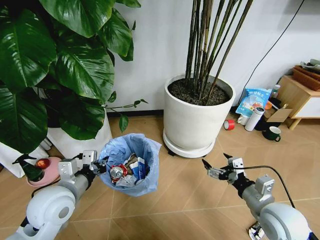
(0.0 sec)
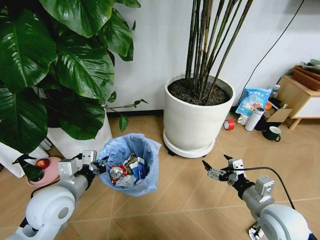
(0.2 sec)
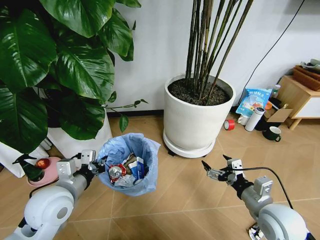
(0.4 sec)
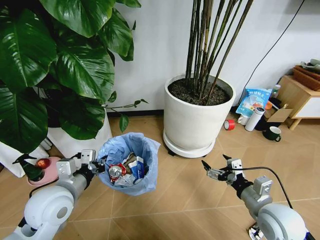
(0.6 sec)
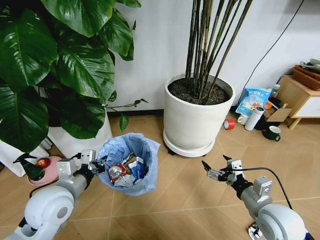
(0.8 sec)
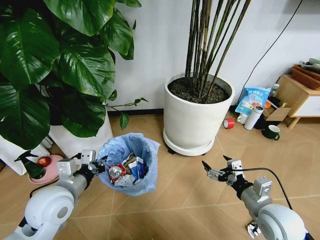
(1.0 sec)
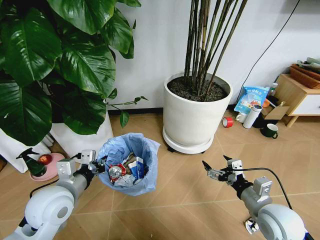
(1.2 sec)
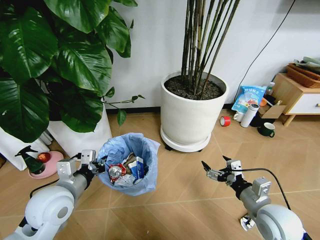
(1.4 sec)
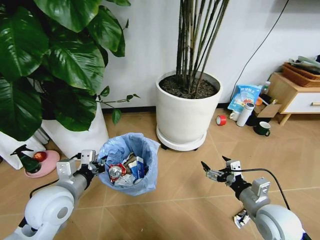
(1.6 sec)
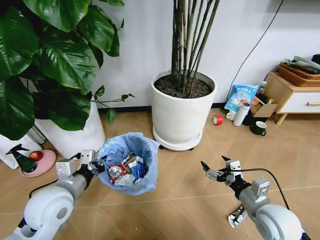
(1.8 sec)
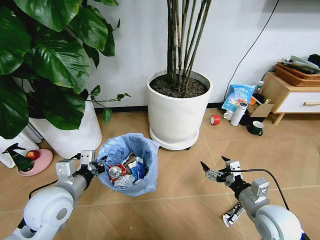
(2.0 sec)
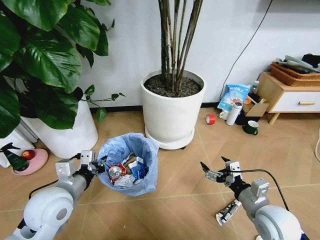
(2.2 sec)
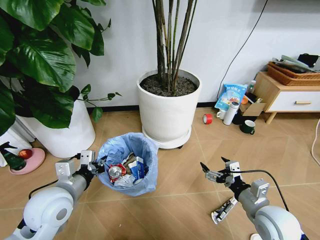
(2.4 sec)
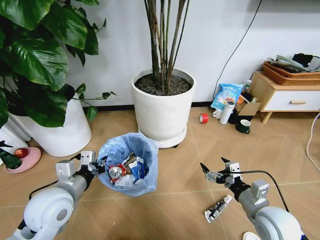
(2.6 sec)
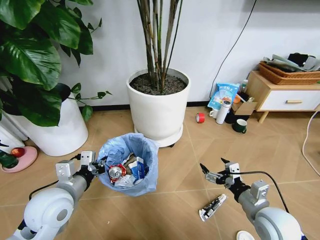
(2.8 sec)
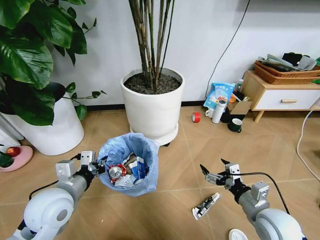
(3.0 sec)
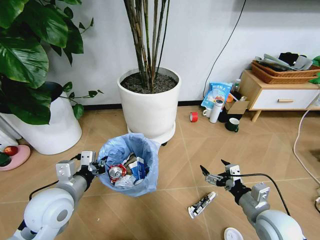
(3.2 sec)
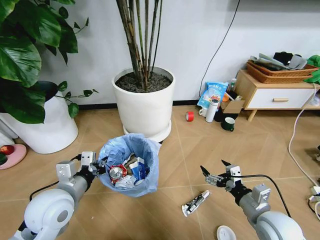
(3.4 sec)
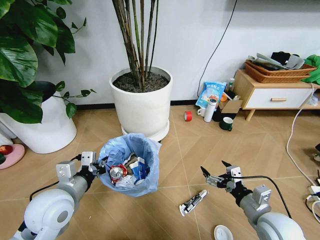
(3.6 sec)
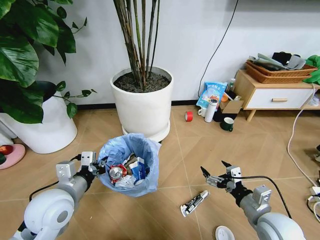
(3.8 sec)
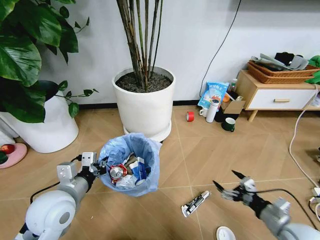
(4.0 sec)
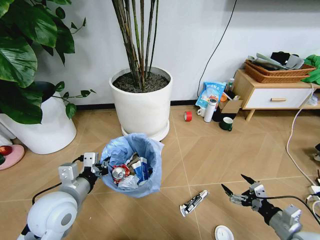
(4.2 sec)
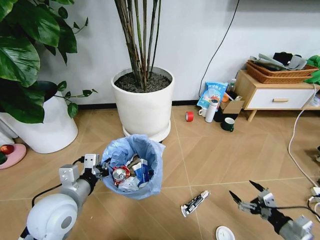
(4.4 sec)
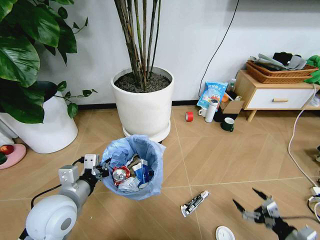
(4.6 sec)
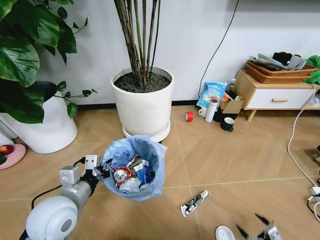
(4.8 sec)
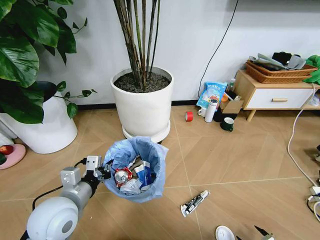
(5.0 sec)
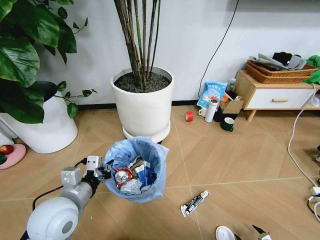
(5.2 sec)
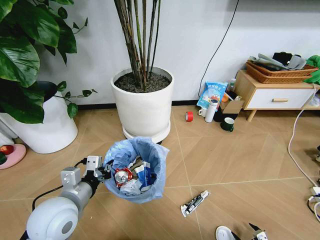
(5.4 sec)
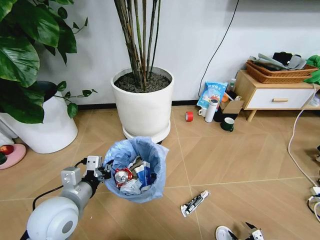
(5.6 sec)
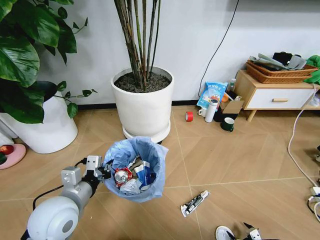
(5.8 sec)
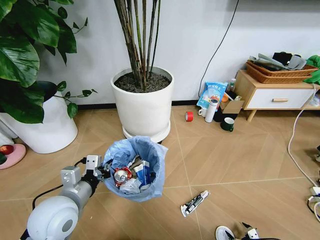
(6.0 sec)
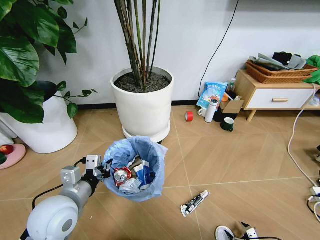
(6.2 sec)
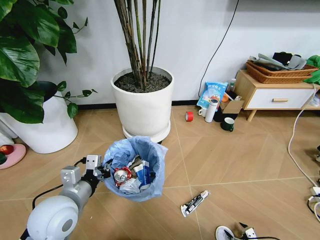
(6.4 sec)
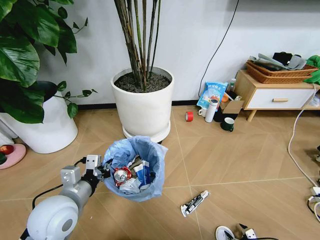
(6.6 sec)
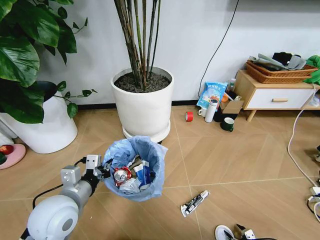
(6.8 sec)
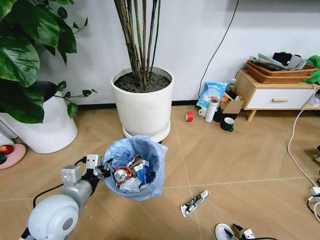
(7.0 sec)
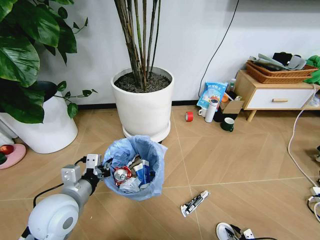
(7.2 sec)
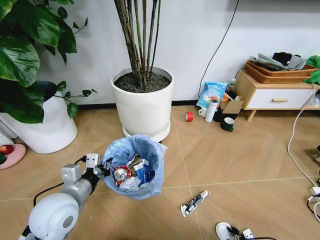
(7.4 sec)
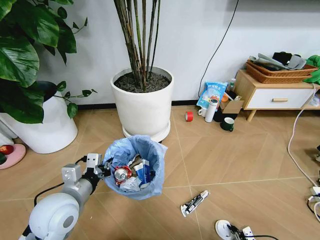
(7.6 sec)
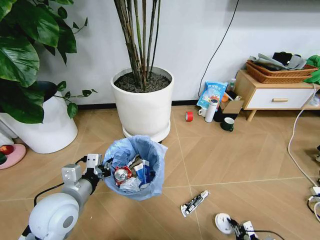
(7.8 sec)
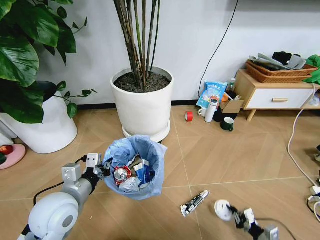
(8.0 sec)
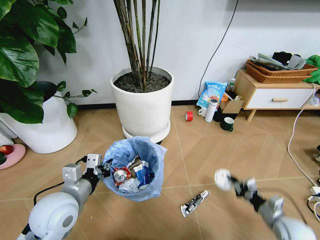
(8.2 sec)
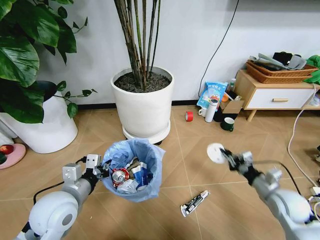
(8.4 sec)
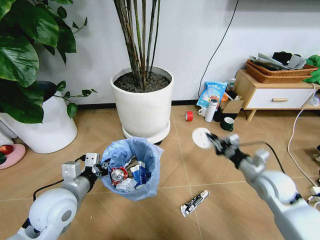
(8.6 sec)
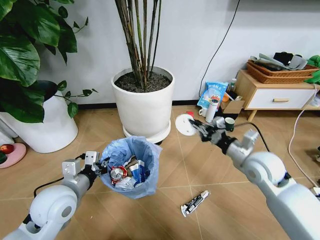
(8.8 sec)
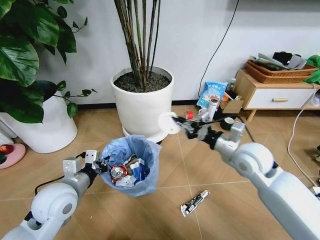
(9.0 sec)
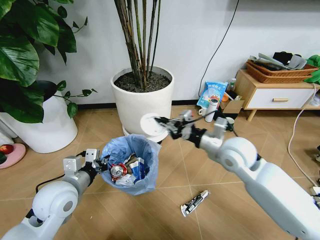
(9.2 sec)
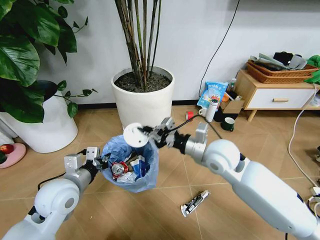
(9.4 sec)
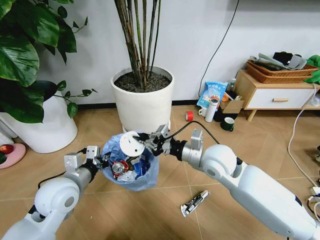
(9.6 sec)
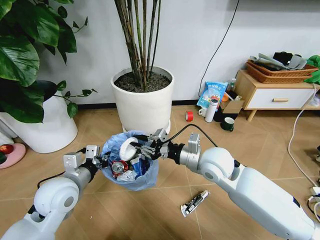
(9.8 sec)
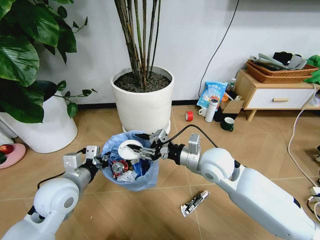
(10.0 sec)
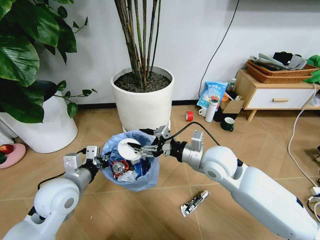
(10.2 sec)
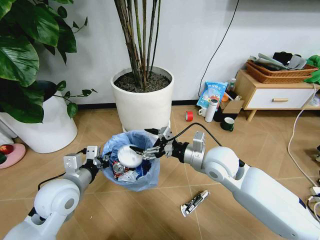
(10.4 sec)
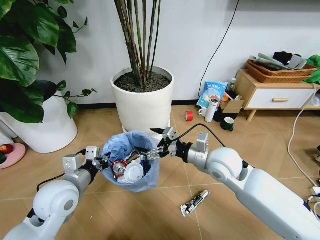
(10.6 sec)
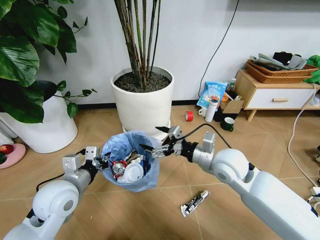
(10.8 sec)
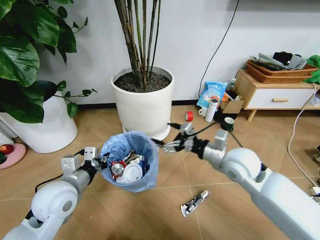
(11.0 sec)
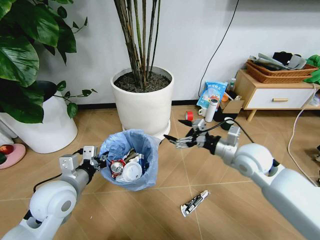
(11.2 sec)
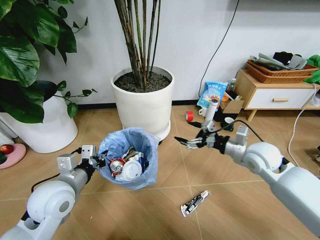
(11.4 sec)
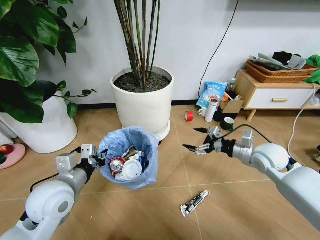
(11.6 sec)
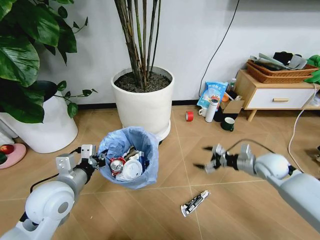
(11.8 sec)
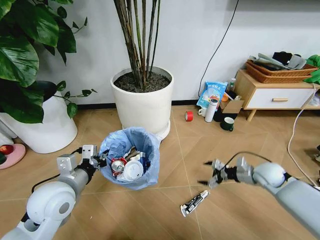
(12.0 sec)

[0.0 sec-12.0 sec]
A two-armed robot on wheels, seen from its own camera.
Task of the whole recording: Pick up the trash bin and place the garbage on the floor into it.
3.0 sec to 4.4 sec: The right gripper travels to the right, backward and downward by about 15 cm.
4.4 sec to 6.0 sec: The right gripper moves downward, some 20 cm.
6.0 sec to 7.6 sec: The right gripper closes up.
7.6 sec to 9.0 sec: The right gripper moves upward, forward and to the left, roughly 50 cm.
9.0 sec to 10.4 sec: The right gripper moves to the left, about 10 cm, and opens.
10.4 sec to 12.0 sec: The right gripper shifts some 30 cm to the right and downward.

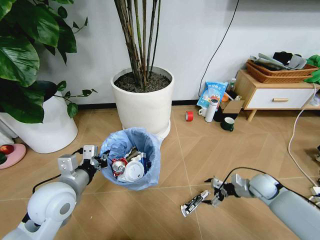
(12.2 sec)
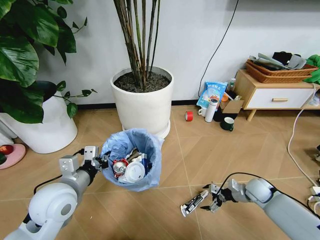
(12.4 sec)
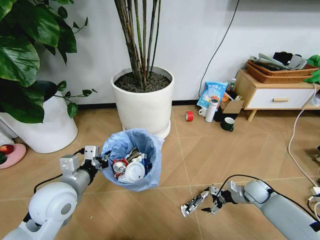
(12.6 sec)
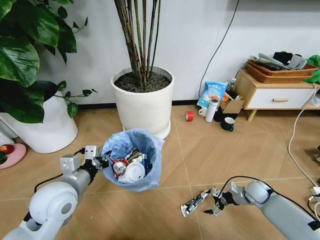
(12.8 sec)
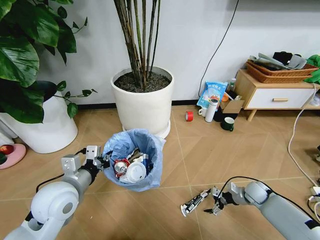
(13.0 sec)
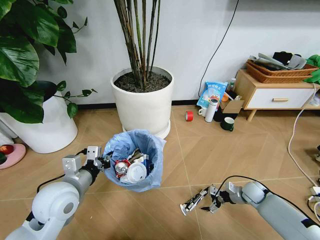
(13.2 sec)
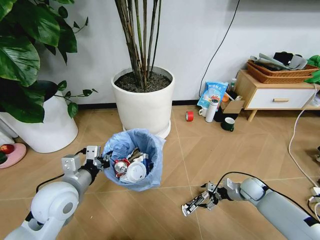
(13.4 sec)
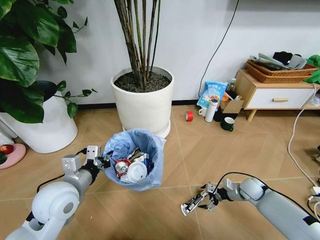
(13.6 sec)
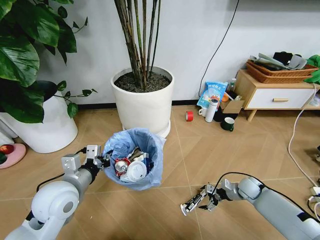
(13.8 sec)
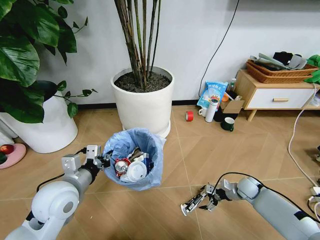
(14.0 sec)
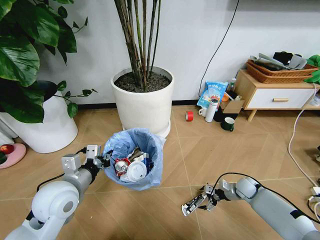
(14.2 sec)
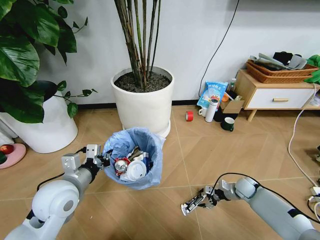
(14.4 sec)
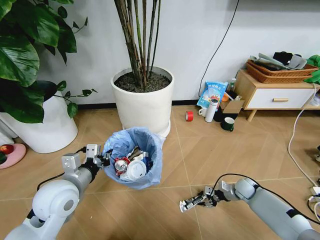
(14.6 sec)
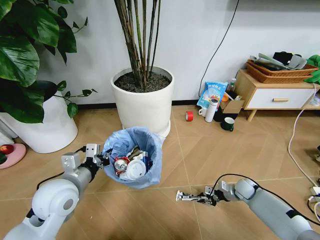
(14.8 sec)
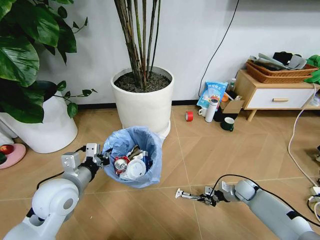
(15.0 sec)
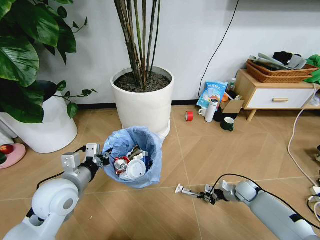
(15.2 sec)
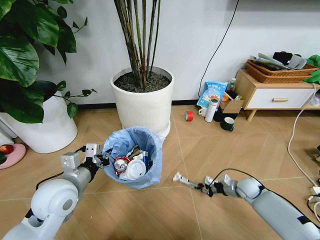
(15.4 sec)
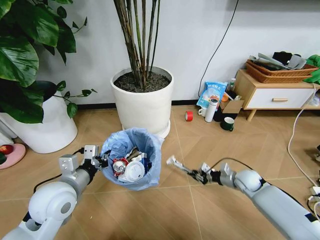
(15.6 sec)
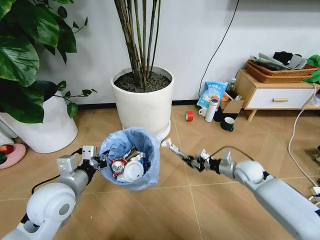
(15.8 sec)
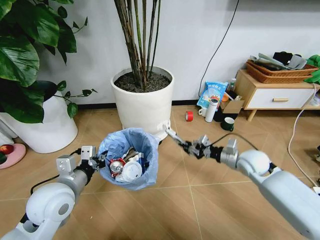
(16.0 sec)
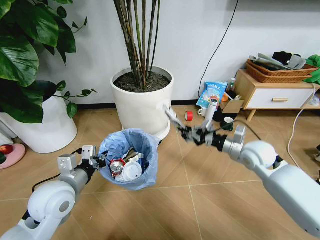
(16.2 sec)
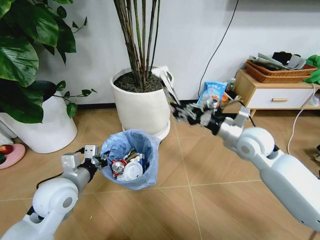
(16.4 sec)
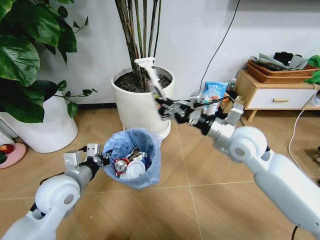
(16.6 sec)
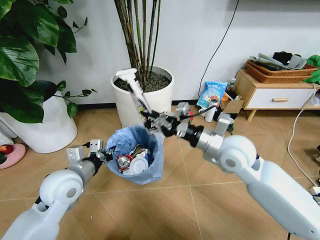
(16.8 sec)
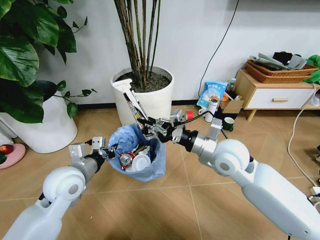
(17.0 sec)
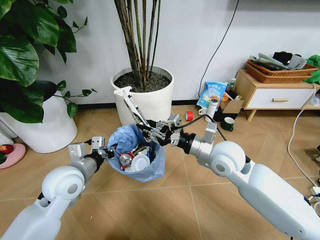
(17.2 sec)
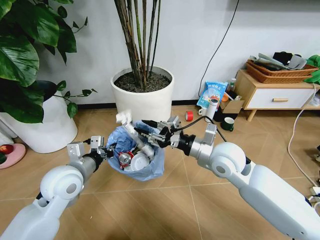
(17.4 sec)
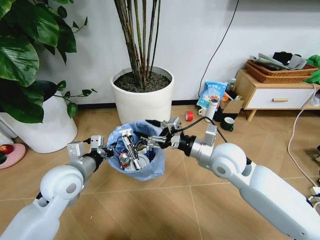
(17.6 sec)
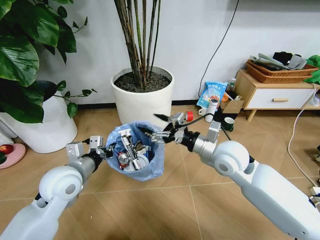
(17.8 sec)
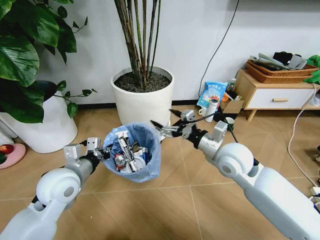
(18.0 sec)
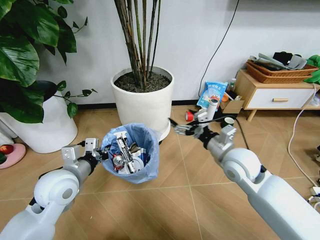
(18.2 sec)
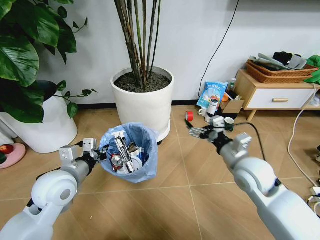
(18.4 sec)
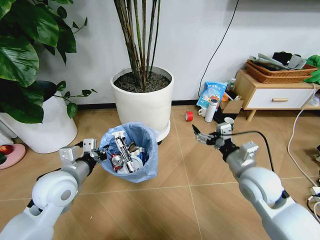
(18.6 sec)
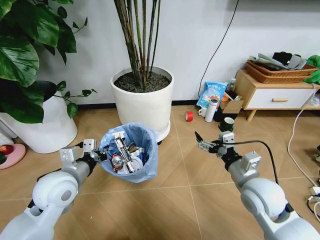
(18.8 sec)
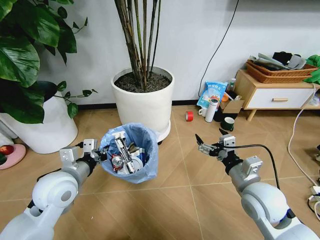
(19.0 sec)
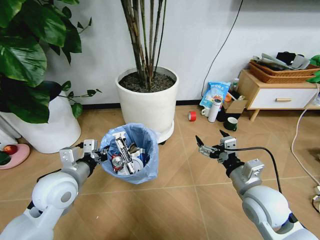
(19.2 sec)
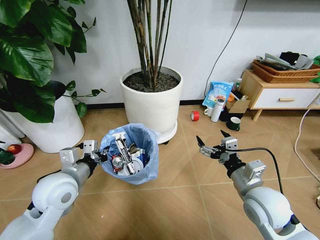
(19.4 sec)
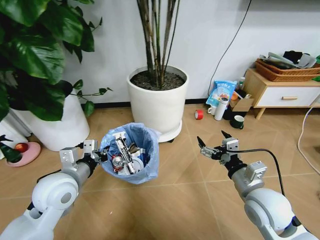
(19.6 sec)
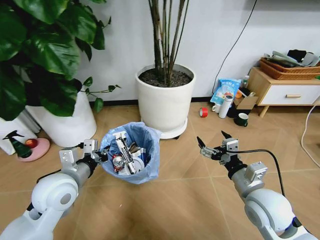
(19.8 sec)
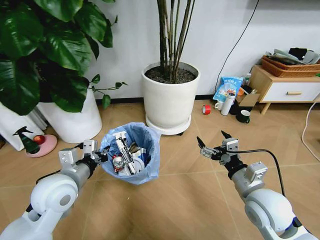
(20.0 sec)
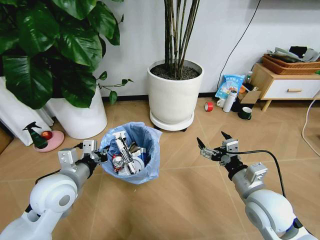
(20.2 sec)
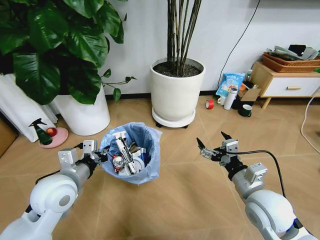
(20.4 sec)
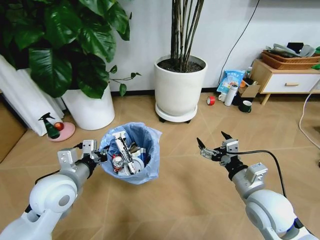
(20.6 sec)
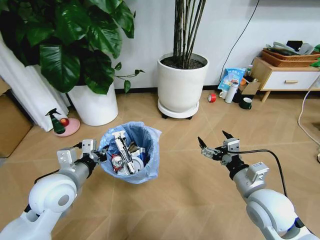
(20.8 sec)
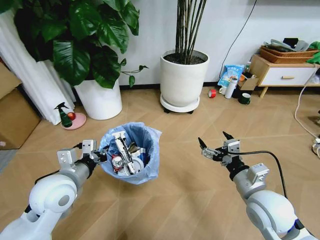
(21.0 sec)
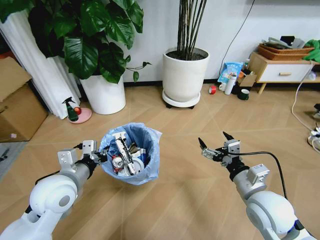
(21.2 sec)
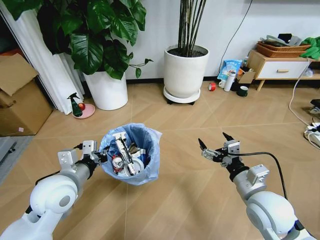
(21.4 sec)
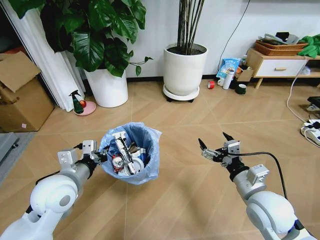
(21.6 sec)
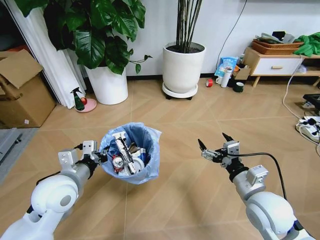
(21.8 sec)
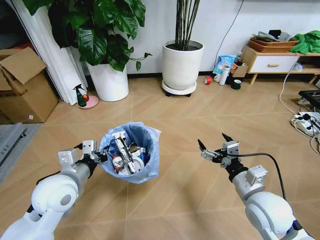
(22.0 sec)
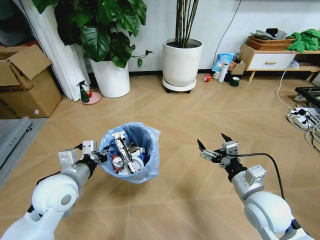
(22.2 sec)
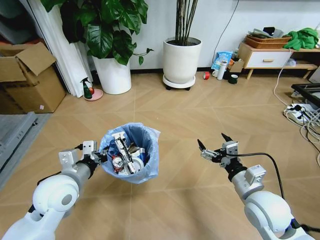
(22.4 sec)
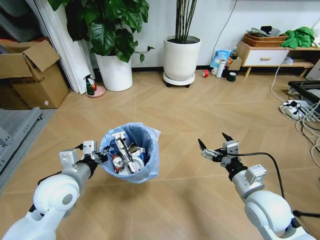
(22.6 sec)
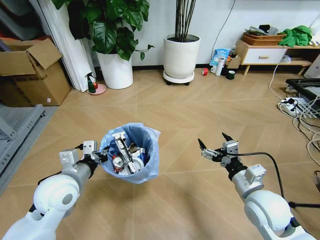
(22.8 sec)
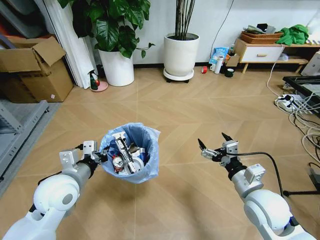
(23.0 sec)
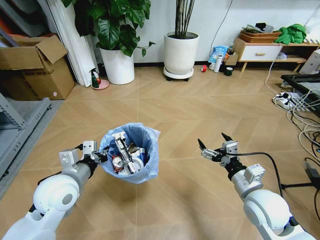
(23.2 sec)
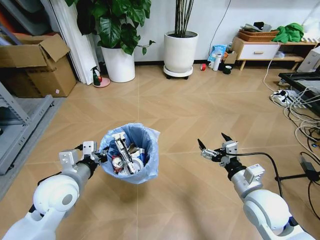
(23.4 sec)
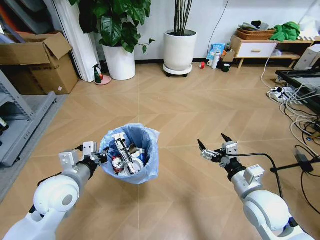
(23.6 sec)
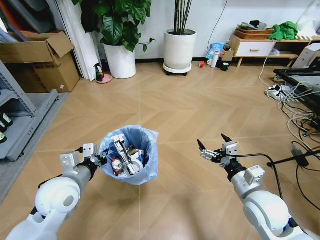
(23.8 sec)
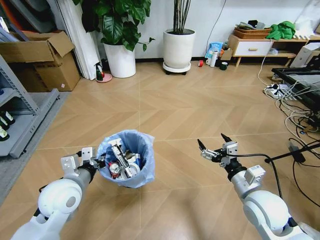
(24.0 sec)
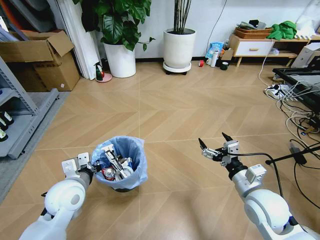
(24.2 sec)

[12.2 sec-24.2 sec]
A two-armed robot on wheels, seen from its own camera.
Task of the whole recording: Pick up the trash bin and place the garbage on the floor into it.
12.2 sec to 13.8 sec: The right gripper heads downward, covering some 5 cm.
13.8 sec to 15.2 sec: The right gripper closes up.
15.2 sec to 16.6 sec: The right gripper heads upward and to the left, covering roughly 40 cm.
16.6 sec to 18.2 sec: The right gripper travels downward by approximately 5 cm, and opens.
18.2 sec to 19.8 sec: The right gripper shifts approximately 10 cm backward.
